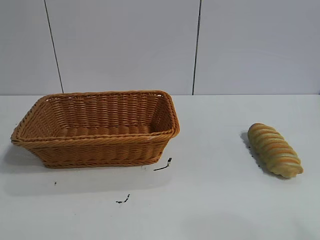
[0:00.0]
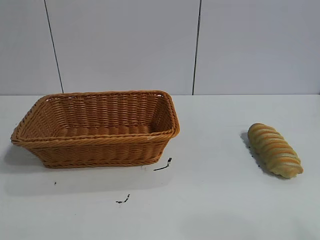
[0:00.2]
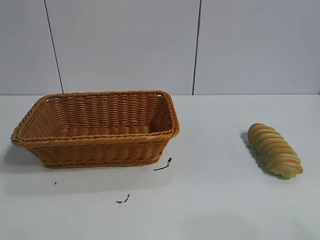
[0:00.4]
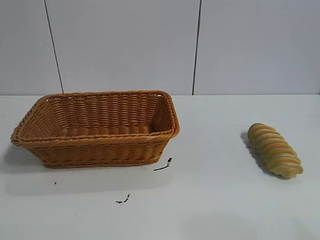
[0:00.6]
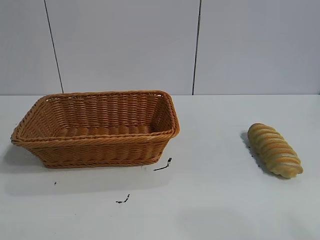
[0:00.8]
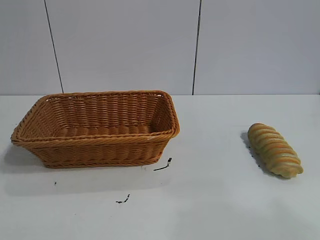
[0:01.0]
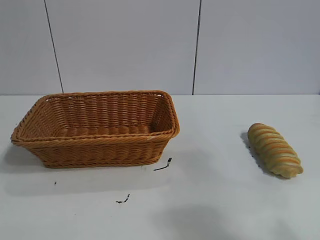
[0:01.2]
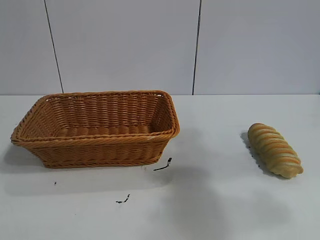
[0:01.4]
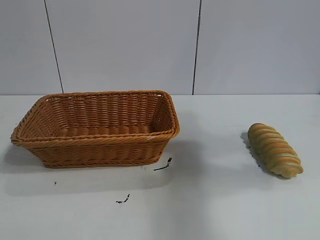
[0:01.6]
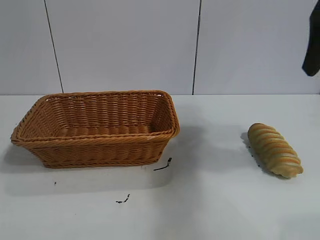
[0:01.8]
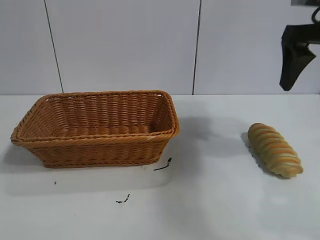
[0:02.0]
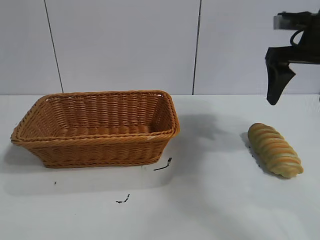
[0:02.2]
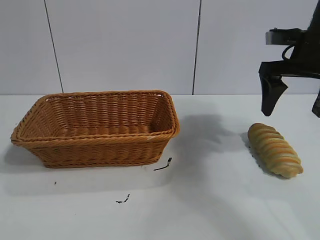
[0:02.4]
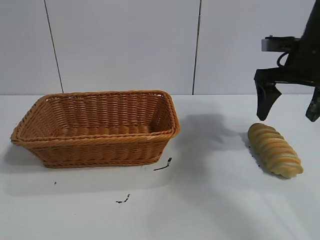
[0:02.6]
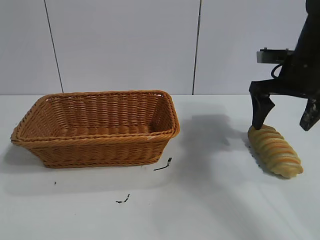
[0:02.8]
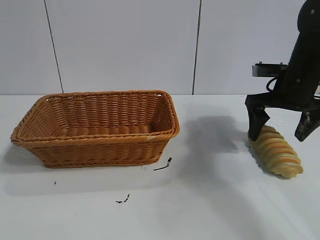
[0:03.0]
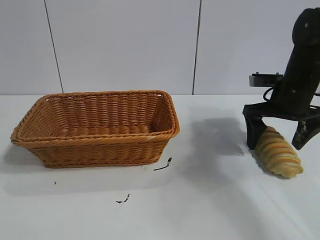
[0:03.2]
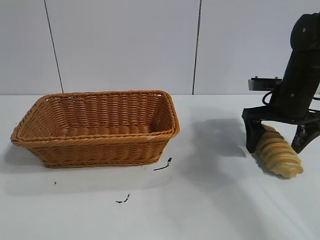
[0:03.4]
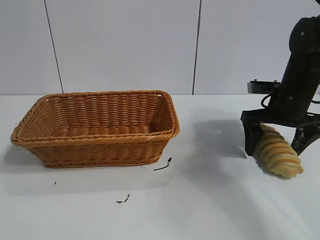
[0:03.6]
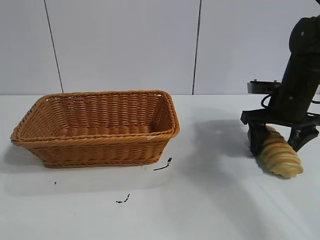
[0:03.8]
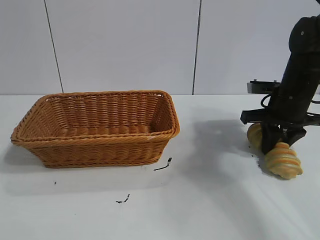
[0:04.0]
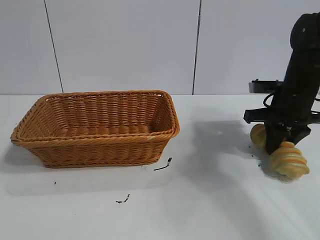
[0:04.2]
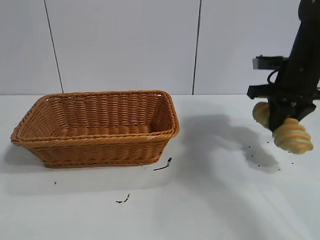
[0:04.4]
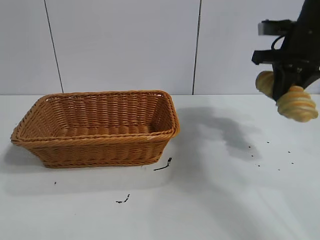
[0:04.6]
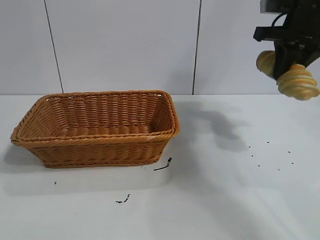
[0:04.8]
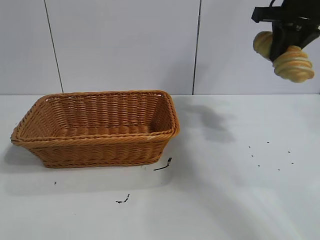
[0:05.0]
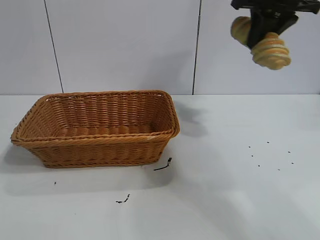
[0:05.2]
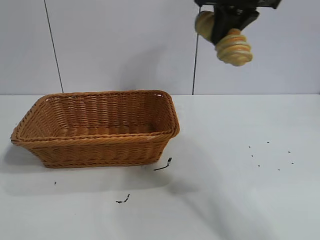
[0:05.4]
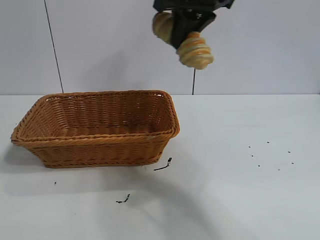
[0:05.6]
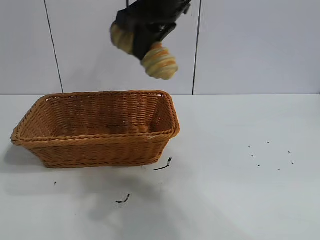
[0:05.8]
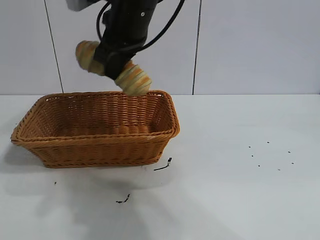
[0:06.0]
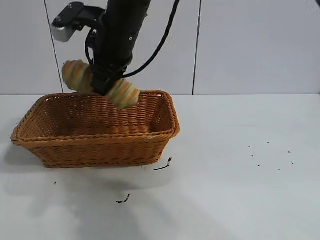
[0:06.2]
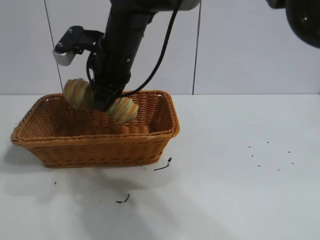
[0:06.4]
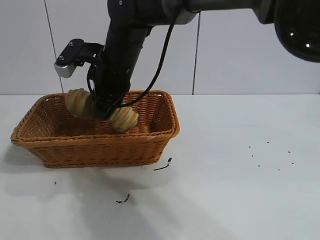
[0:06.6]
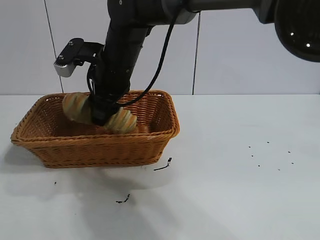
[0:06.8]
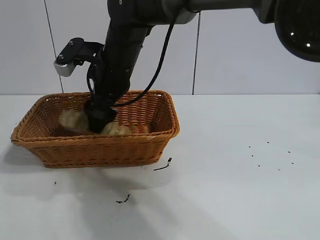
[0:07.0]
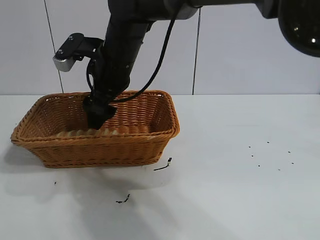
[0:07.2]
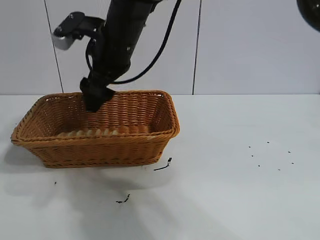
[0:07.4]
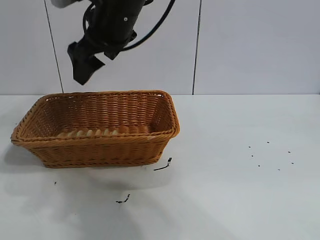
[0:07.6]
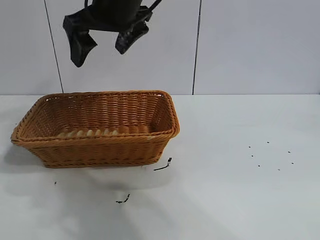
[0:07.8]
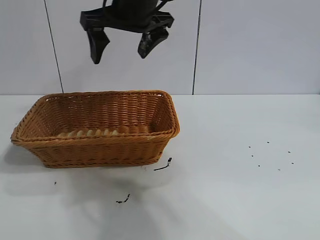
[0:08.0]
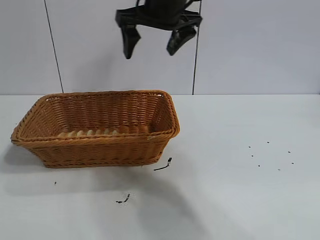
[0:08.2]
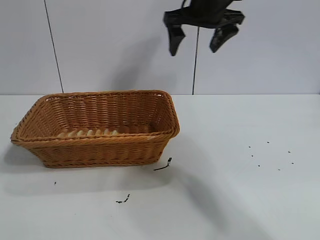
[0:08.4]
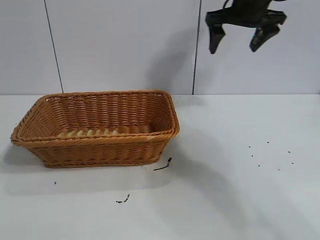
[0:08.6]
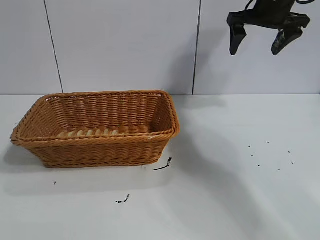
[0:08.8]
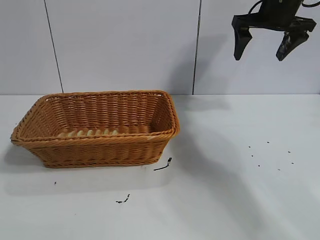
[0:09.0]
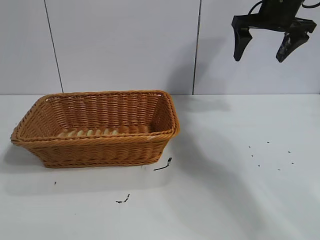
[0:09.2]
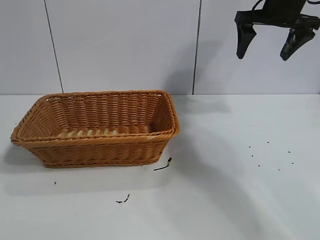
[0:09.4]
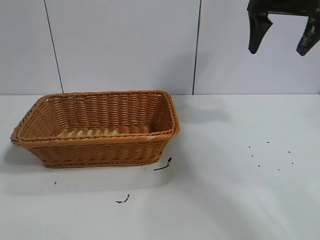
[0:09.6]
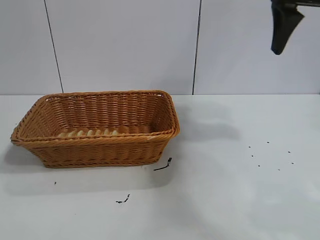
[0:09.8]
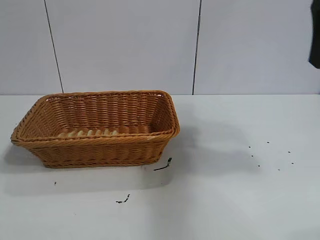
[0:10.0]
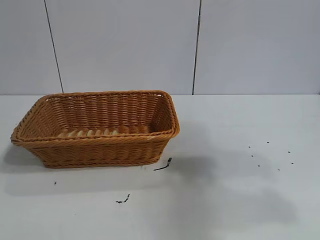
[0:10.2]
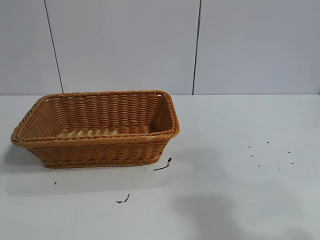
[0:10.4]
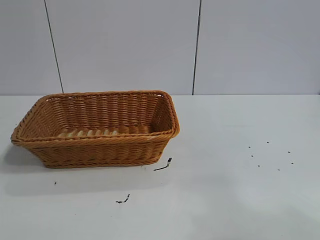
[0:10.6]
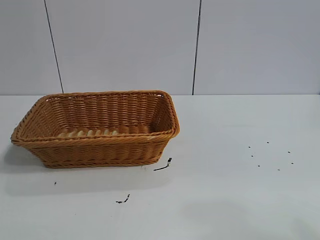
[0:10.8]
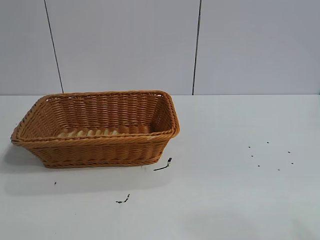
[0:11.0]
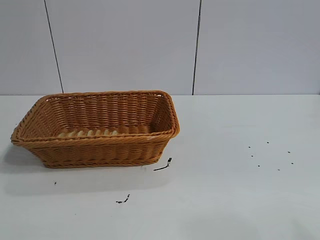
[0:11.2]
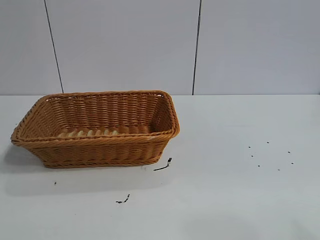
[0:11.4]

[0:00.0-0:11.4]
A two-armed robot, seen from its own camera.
Task of the whole recording: pick up the long bread and put it into the basket.
Step, 0:01.8 to 0:04.0: Grasp the long bread with right gripper.
Step, 0:04.4 to 0:07.4: Place the long bread in the basket with right gripper.

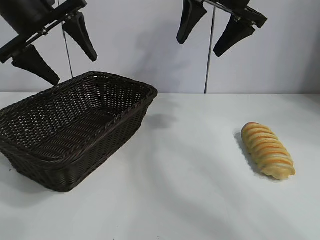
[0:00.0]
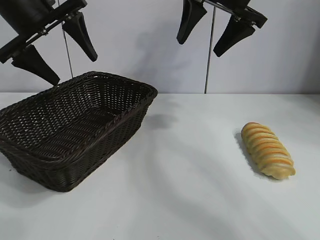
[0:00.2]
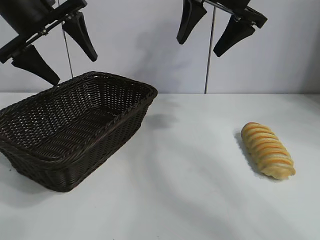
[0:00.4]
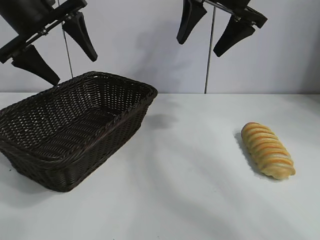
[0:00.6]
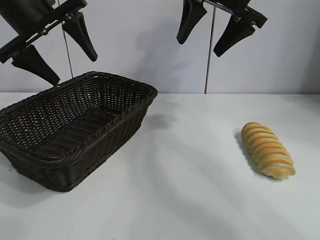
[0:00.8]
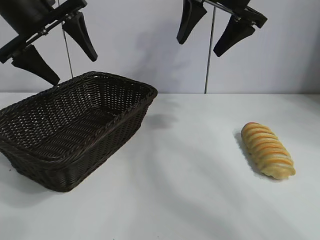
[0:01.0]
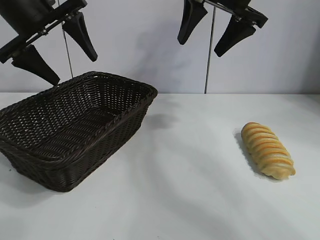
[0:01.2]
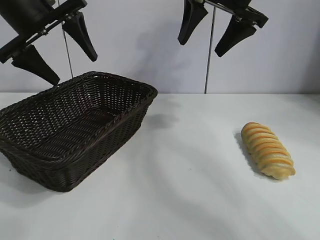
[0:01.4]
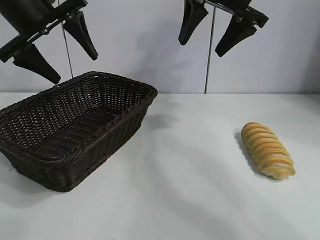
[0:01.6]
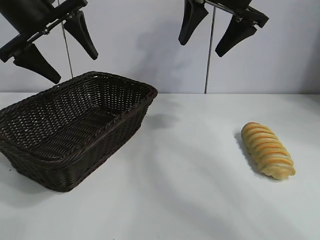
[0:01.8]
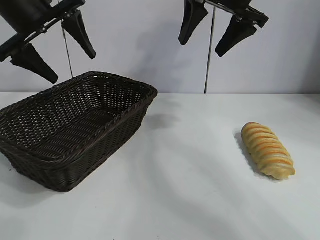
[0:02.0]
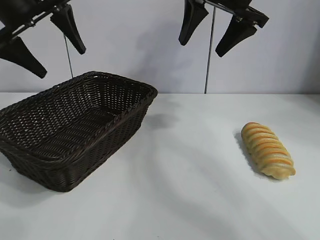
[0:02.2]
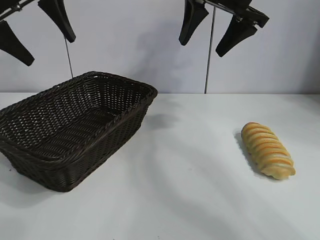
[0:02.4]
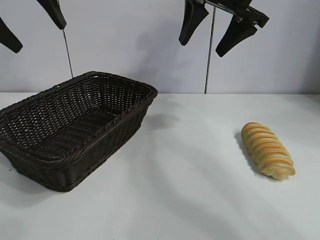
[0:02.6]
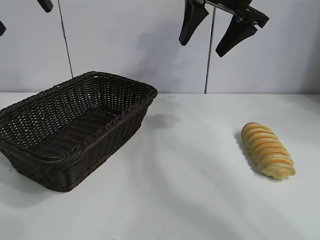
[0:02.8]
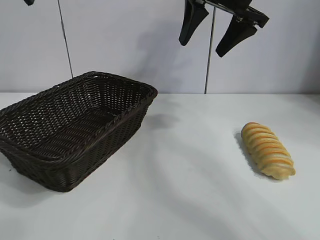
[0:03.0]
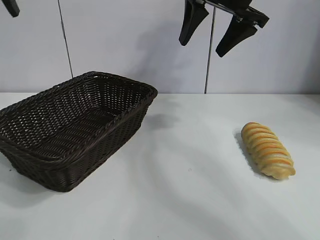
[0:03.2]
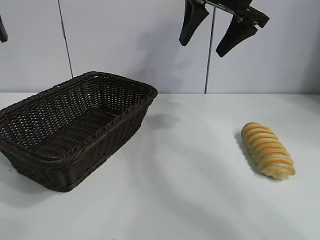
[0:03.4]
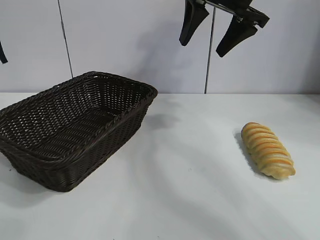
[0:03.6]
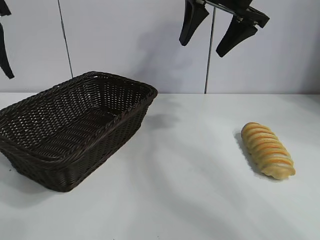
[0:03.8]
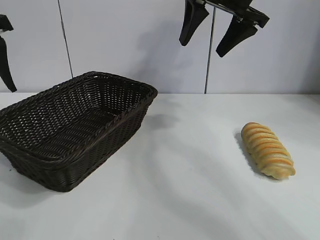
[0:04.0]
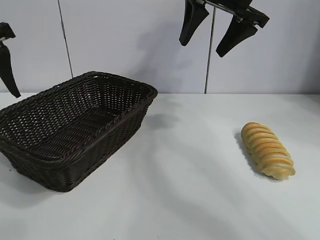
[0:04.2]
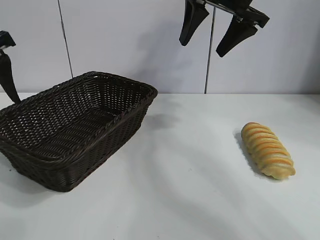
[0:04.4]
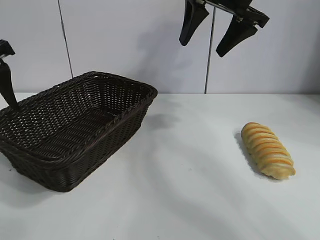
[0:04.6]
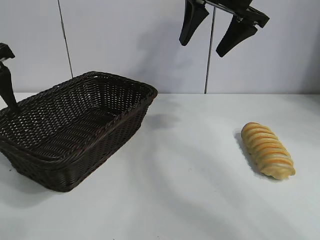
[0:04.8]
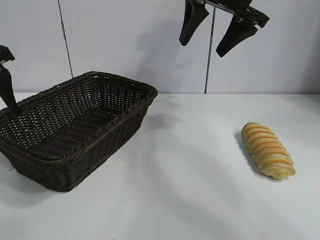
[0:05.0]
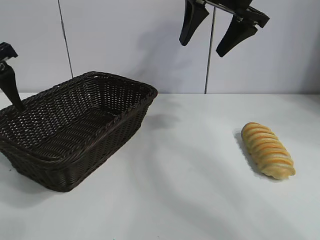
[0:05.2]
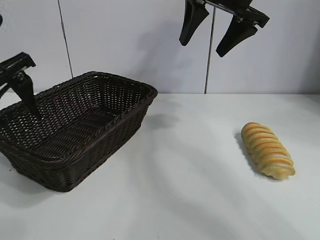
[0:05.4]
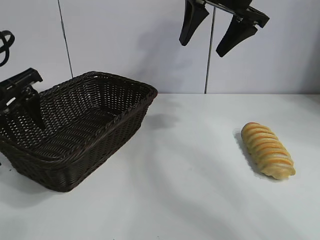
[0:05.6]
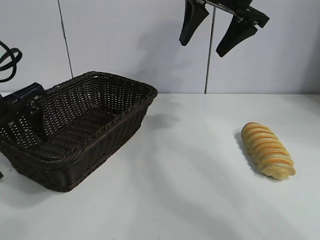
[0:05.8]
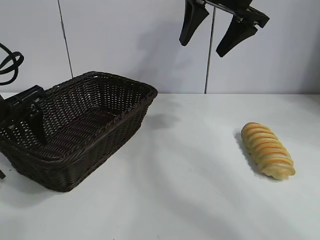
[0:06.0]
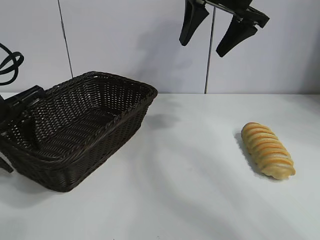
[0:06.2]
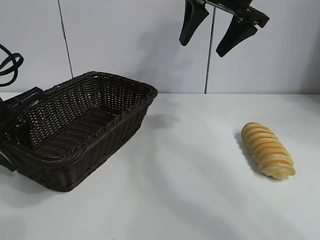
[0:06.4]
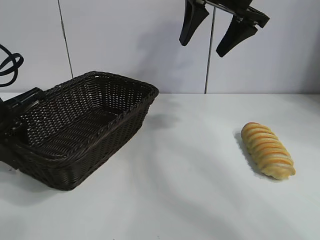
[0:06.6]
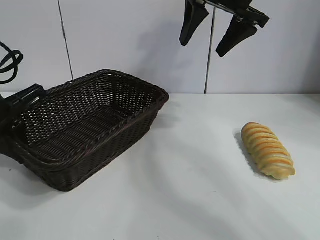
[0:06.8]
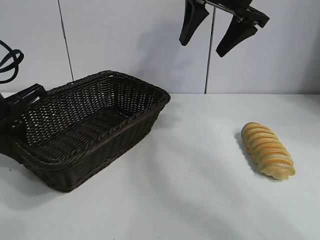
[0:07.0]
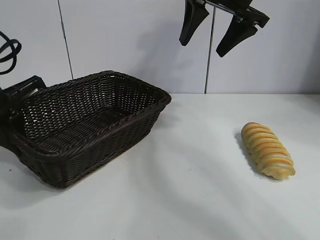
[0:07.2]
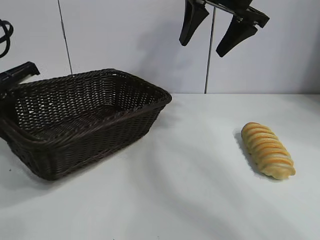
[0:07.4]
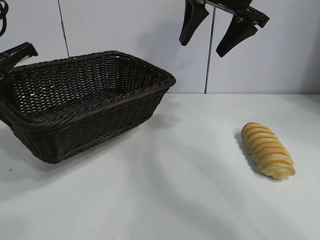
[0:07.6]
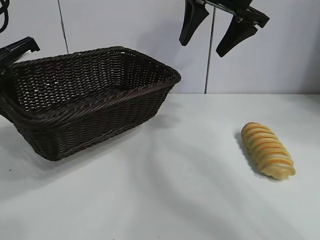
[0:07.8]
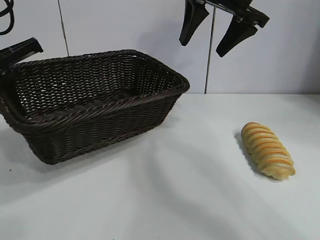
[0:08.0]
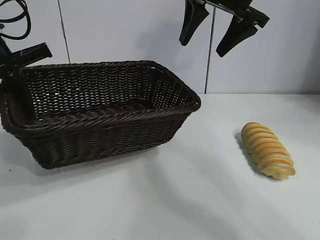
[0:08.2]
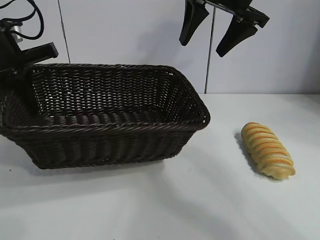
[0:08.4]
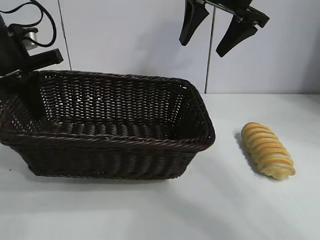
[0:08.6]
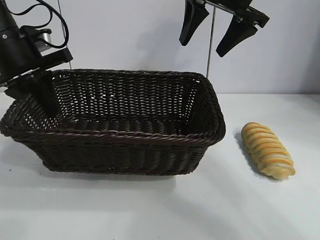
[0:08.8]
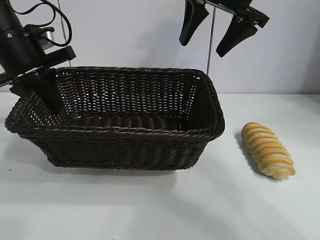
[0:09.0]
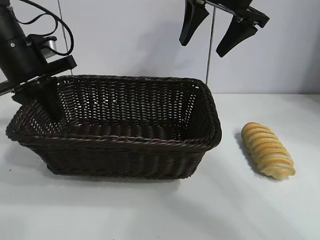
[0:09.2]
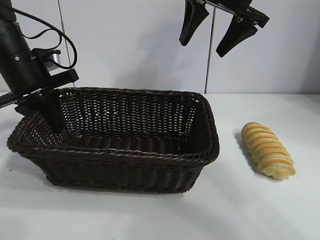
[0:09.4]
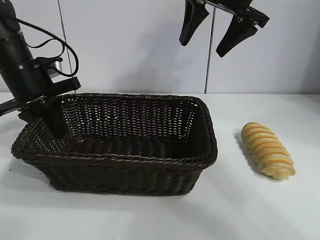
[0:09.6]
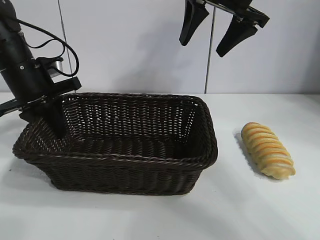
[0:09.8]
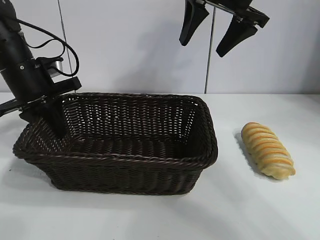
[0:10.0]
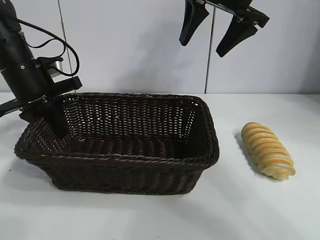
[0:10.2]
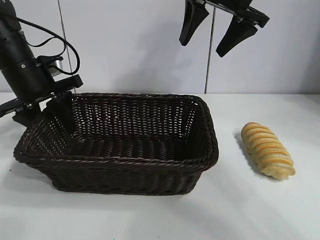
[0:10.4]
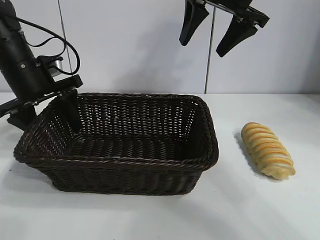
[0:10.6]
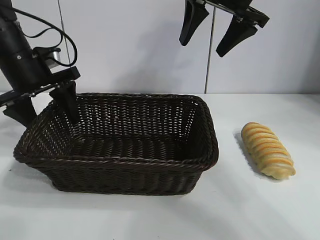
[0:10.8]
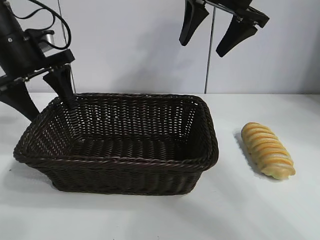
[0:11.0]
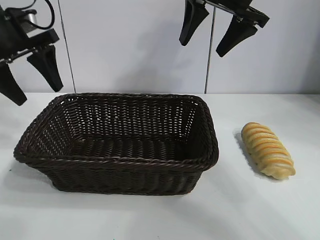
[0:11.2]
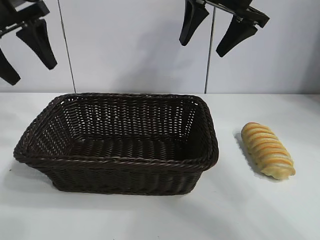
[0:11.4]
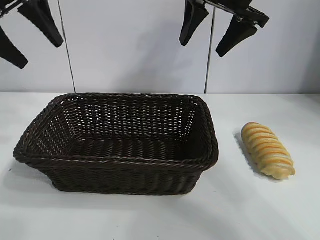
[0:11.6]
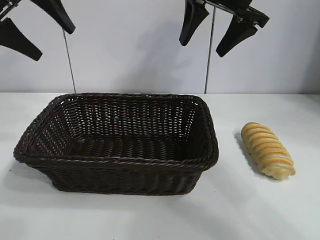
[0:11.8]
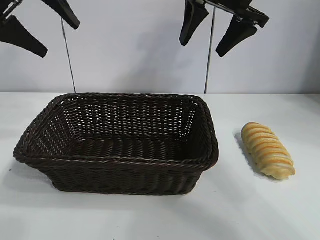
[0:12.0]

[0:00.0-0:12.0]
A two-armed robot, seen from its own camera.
Task of the whole recording: pick up the long bread and put it into the basket.
Step, 0:01.6 to 0:07.0: Grasp the basket with the left gripper.
Step, 0:07.2 to 0:10.6: Place the basket in the center of the table with the left gripper.
